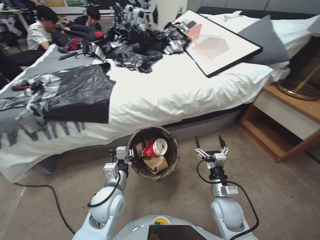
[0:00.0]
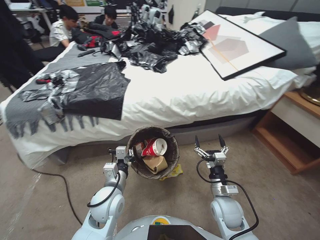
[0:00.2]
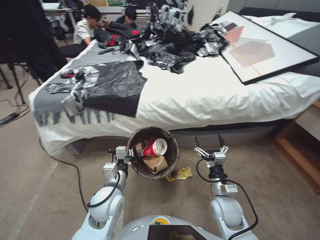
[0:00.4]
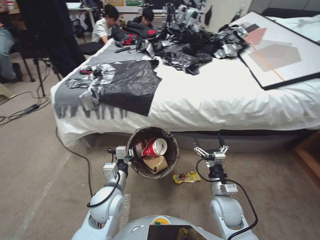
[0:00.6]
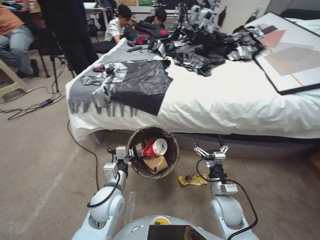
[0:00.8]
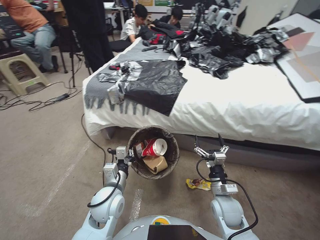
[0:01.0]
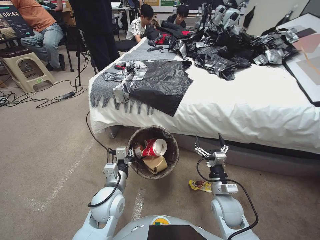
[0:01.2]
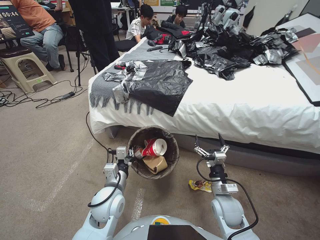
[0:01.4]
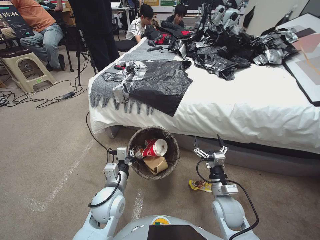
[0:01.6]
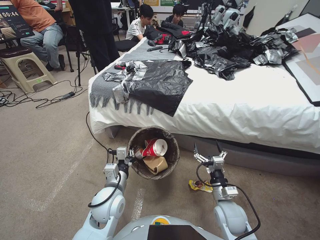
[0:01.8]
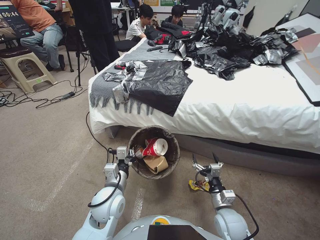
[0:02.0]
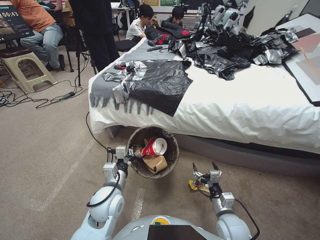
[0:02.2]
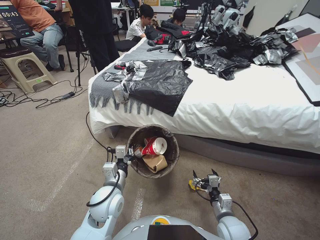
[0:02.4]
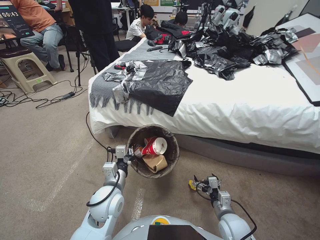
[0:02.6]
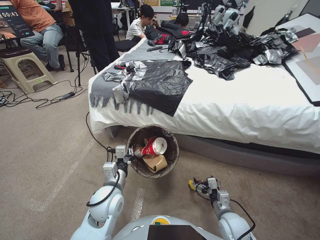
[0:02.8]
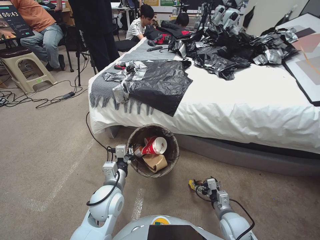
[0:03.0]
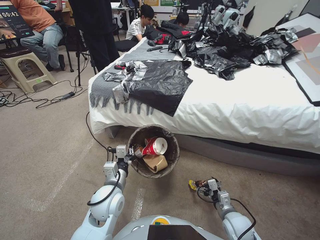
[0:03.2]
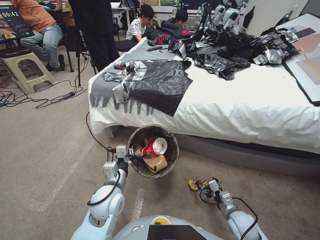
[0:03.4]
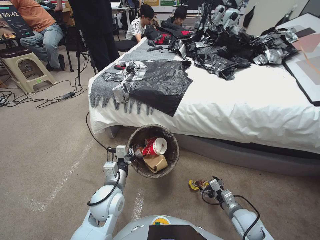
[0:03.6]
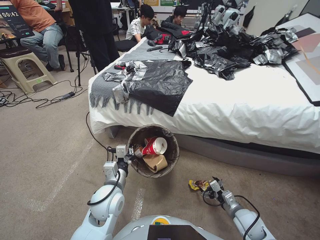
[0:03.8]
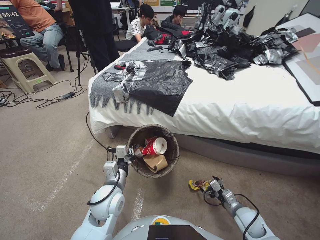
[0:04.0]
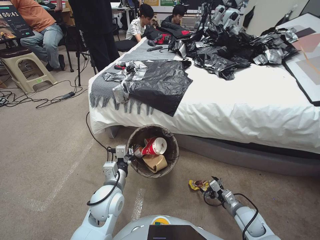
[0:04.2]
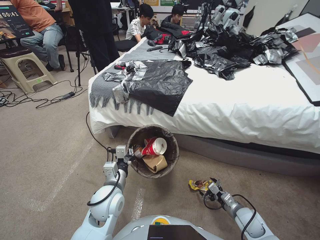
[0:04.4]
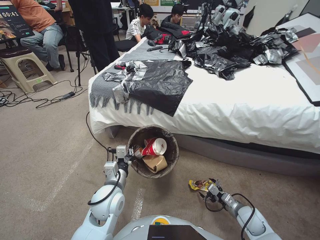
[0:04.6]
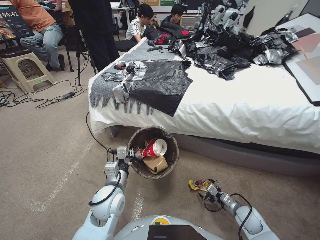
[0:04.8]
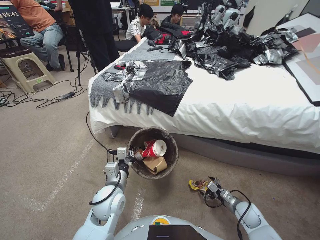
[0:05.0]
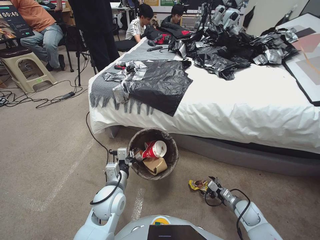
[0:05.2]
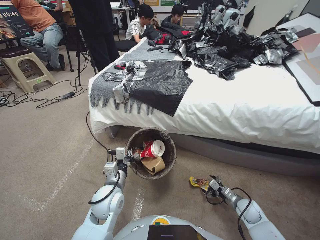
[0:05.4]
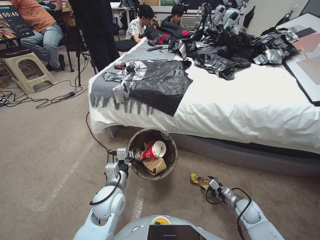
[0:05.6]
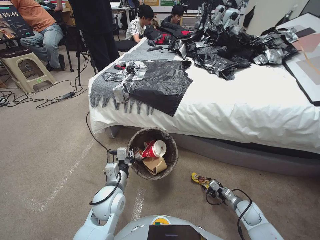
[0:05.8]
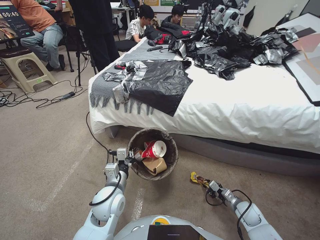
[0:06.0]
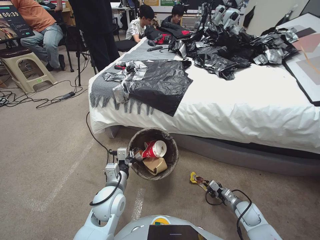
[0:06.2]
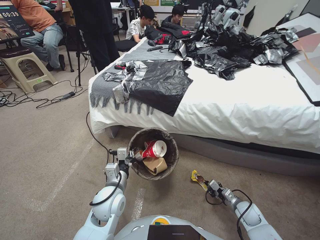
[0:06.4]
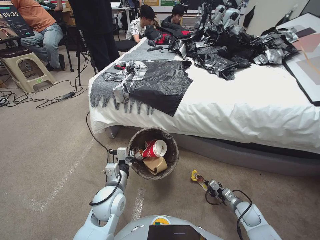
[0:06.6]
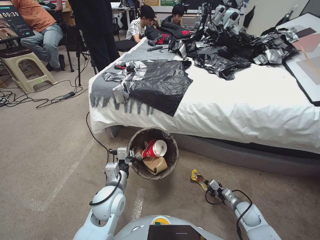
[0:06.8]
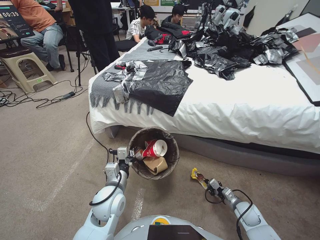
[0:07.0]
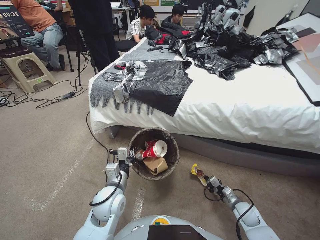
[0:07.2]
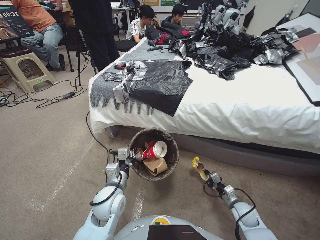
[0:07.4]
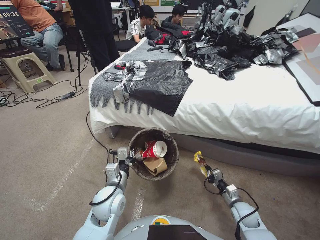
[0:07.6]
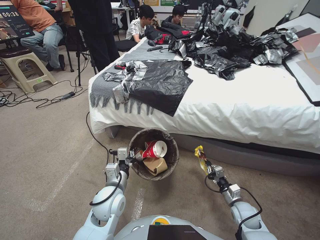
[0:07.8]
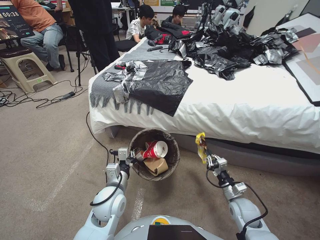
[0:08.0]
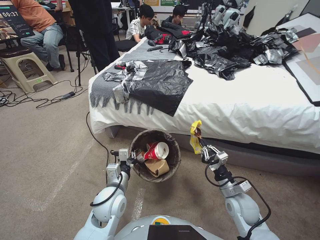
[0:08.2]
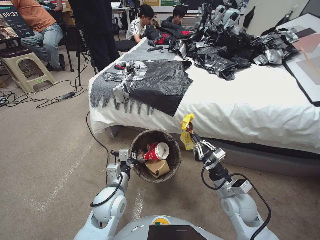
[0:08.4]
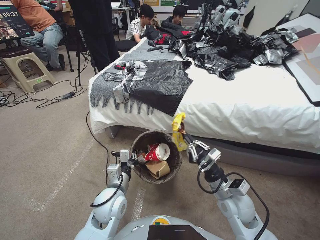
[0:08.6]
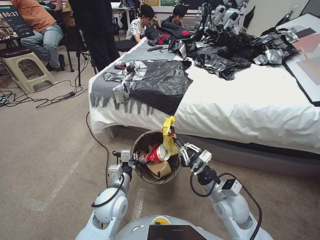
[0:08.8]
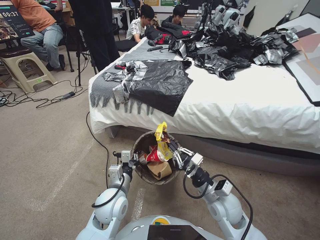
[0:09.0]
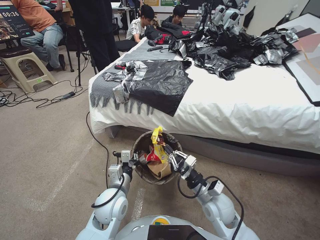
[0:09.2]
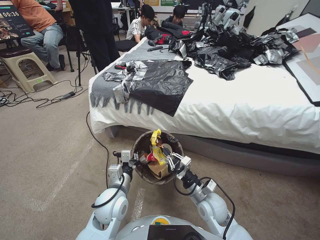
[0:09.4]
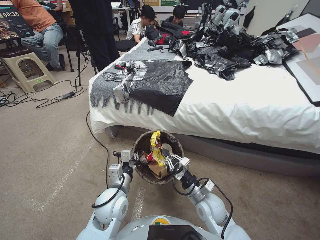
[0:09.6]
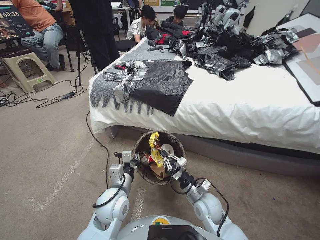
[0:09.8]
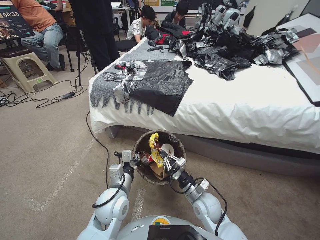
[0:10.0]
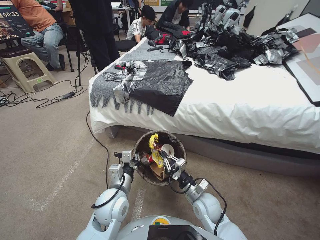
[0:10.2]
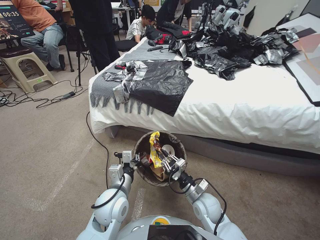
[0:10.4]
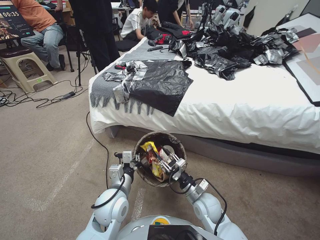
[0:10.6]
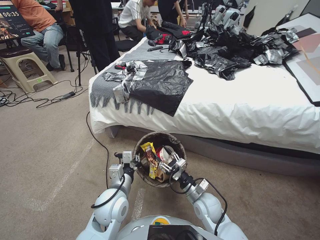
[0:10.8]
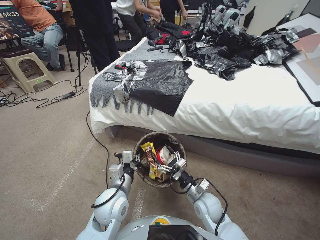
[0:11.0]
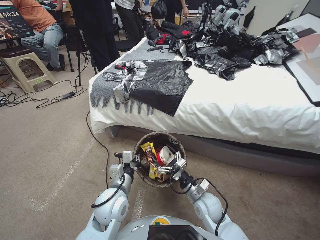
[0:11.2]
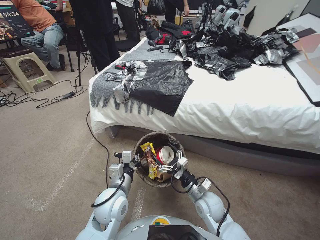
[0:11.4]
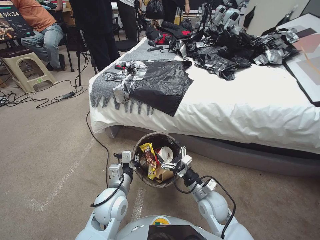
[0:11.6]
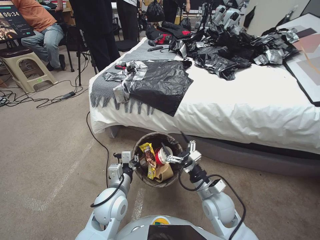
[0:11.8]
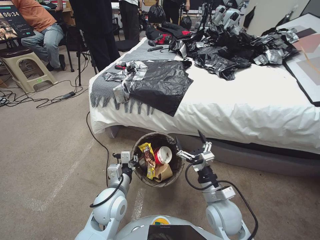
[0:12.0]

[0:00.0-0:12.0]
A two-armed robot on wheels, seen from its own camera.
Task of the whole recording: Pick up the trash bin, then pick up the garbage from the floor and place it into the trash bin.
0:01.6 to 0:03.0: The right gripper is displaced downward by approximately 5 cm.
0:03.0 to 0:04.4: The right gripper moves to the right, roughly 10 cm.
0:04.4 to 0:06.0: The right gripper moves some 5 cm, and closes its fingers.
0:06.0 to 0:07.6: The right gripper closes.
0:07.6 to 0:09.0: The right gripper is displaced upward and to the left by some 25 cm.
0:09.0 to 0:10.4: The right gripper goes approximately 10 cm downward.
0:10.4 to 0:12.0: The right gripper heads upward, covering about 10 cm, and opens up.

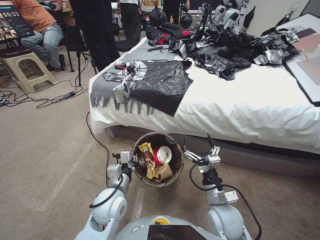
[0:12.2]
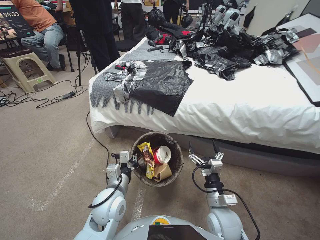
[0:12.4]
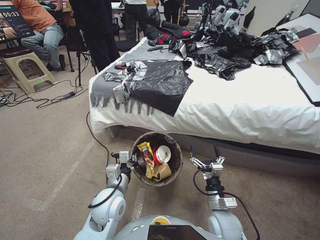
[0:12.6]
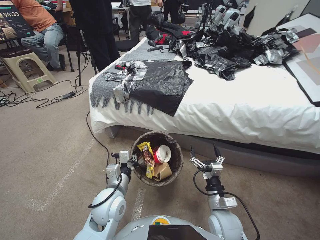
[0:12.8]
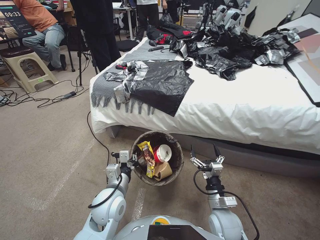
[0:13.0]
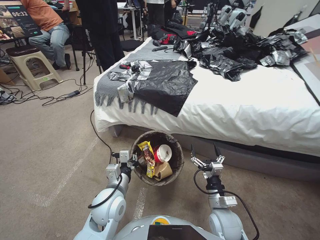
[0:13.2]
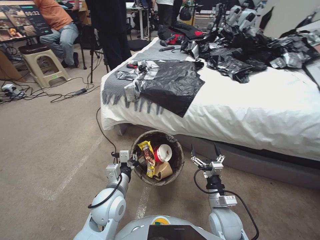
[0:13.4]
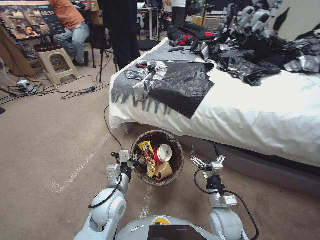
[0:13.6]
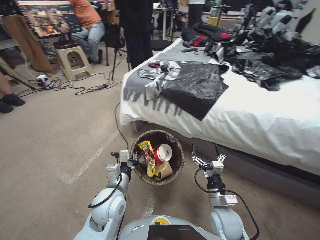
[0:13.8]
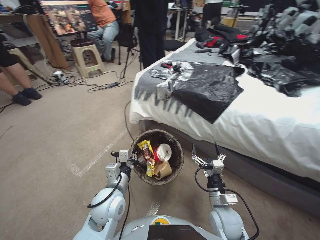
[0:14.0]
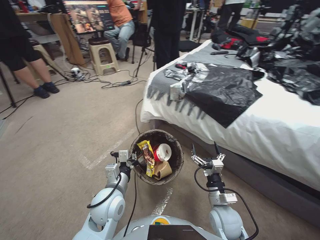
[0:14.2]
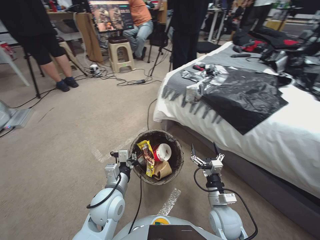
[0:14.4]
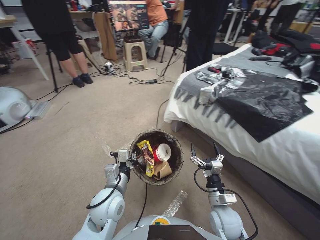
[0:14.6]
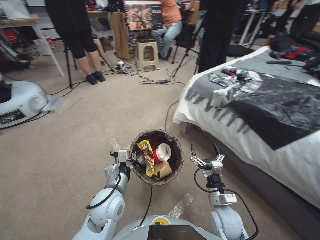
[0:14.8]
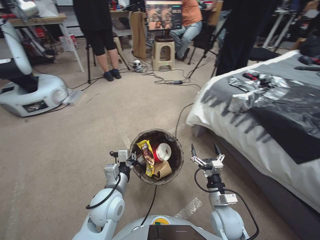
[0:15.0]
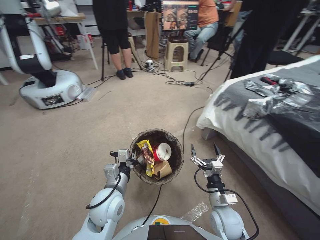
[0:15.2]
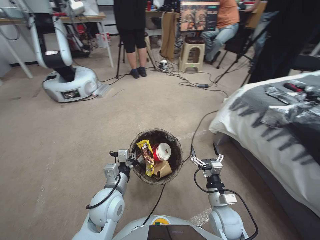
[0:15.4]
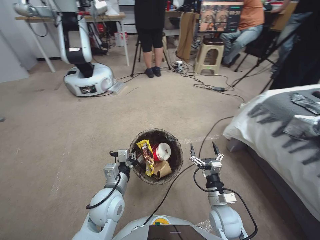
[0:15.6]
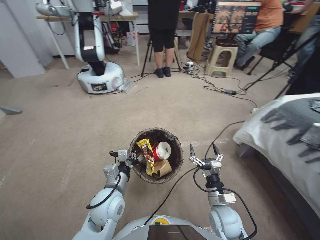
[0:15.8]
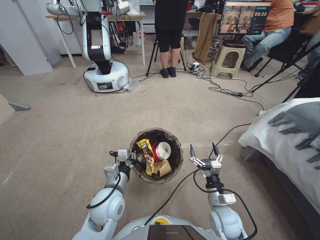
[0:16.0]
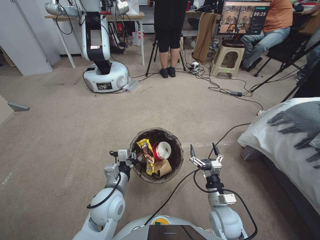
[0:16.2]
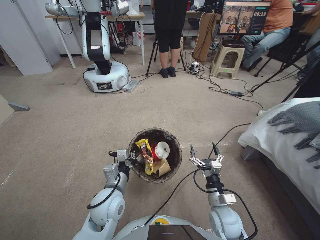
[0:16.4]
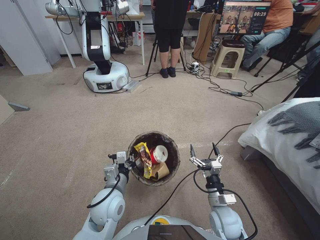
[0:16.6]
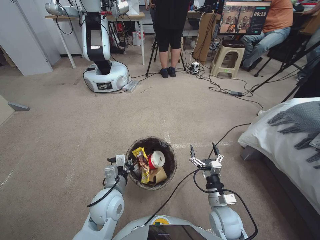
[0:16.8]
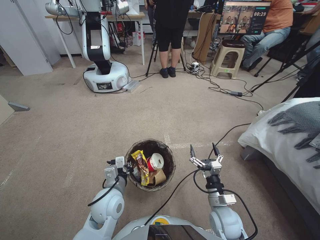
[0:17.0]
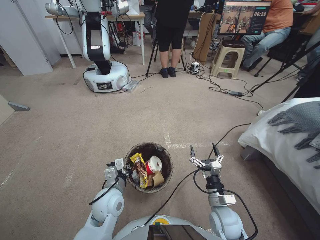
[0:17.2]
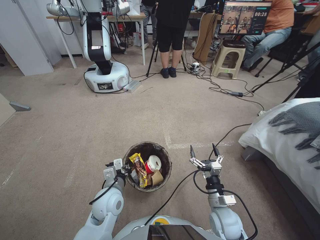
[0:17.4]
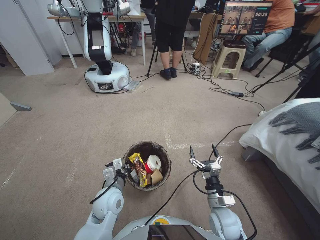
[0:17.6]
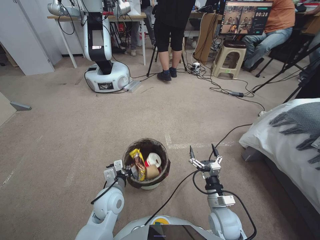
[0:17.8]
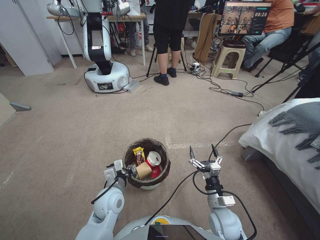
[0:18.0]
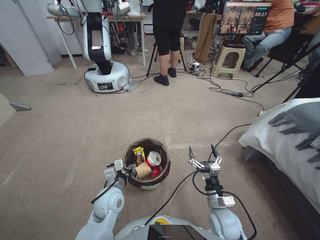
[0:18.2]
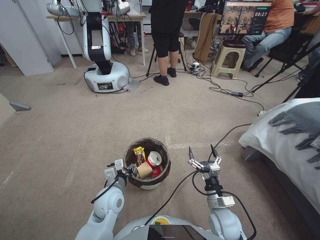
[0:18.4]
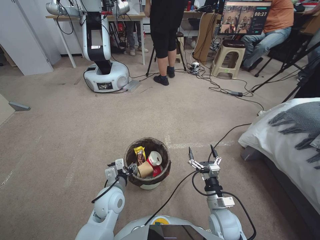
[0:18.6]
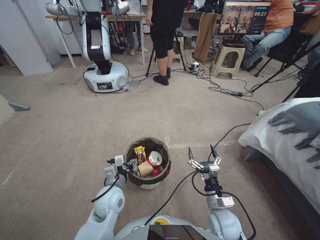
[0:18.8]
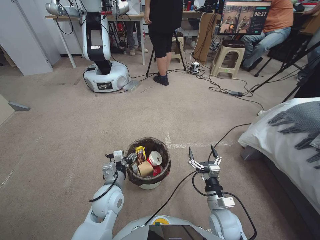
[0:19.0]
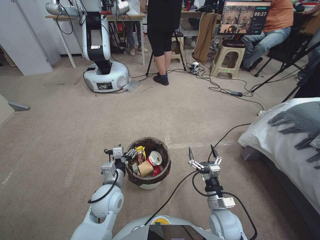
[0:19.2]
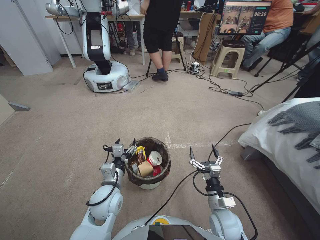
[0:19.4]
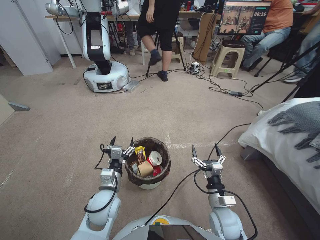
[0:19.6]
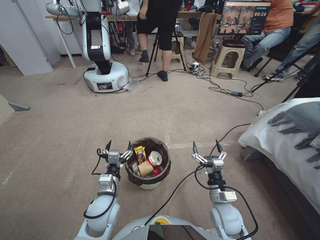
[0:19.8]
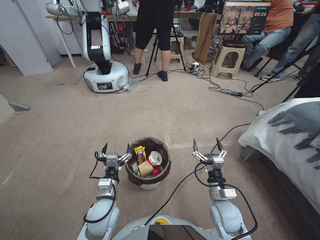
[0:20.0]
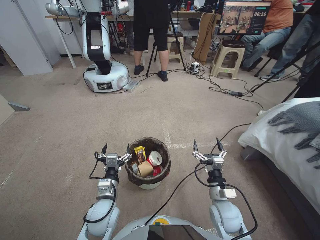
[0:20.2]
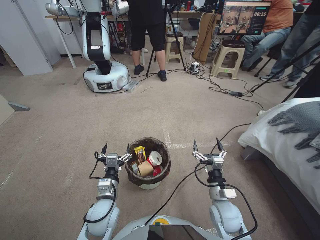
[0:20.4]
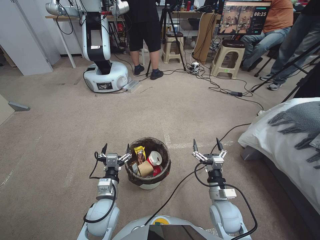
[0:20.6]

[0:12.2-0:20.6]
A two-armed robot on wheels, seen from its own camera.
Task of the whole recording: Pick up the trash bin, then pick up the garbage from the floor and place it into the trash bin.
0:12.2 to 0:13.6: The right gripper heads downward, covering about 5 cm.
0:17.8 to 0:19.2: The left gripper opens.

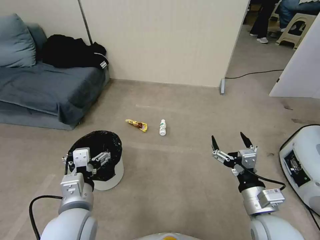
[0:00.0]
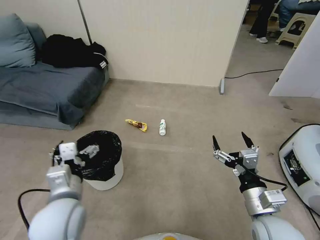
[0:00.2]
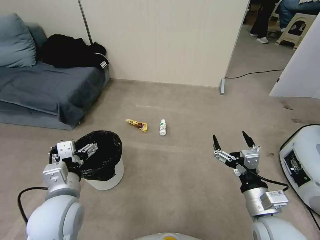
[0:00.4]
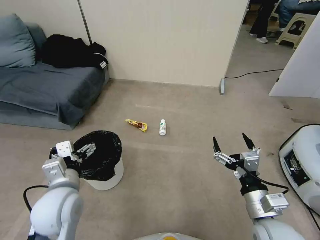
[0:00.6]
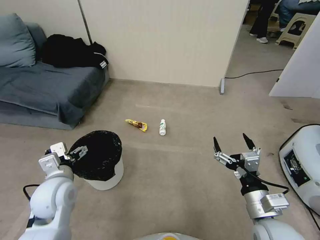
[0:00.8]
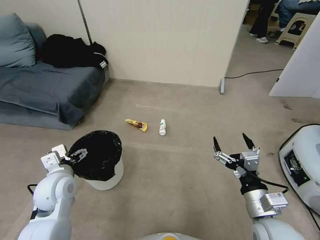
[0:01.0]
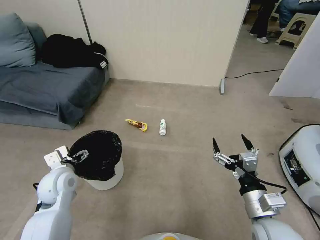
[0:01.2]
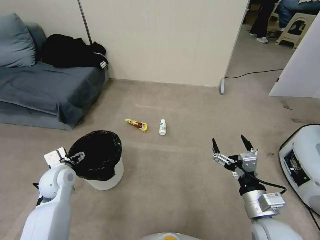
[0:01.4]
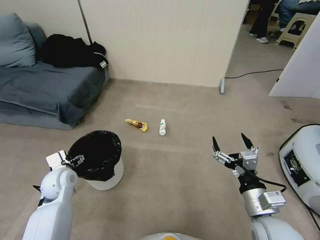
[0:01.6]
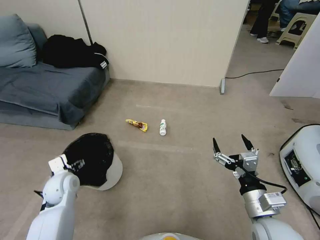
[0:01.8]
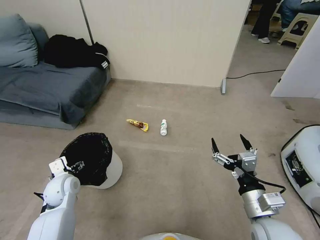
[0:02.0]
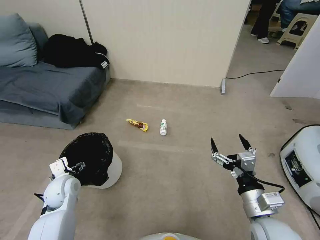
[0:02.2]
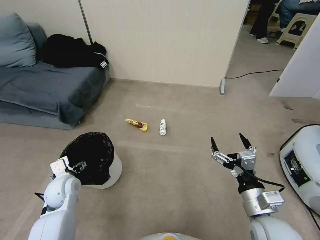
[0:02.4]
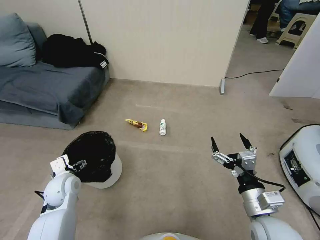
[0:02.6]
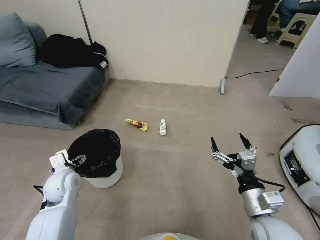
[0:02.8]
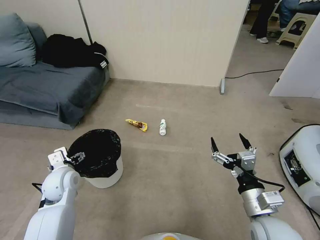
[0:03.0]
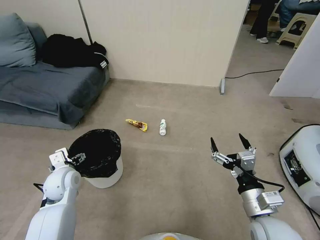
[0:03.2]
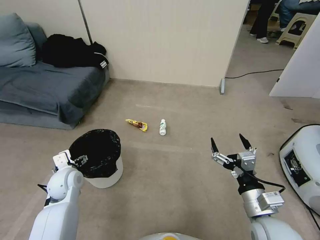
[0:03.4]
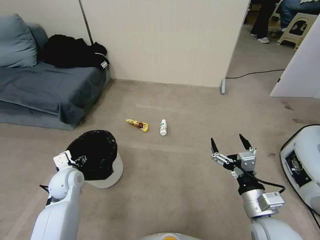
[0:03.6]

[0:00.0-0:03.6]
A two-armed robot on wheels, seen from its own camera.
Task of the whole recording: Pick up the trash bin, then pick up the garbage from the floor and place it into the trash bin.
0:00.0 to 0:01.8: The left gripper travels to the left, forward and downward by some 25 cm.
0:01.8 to 0:03.6: The grippers make only small movements.
